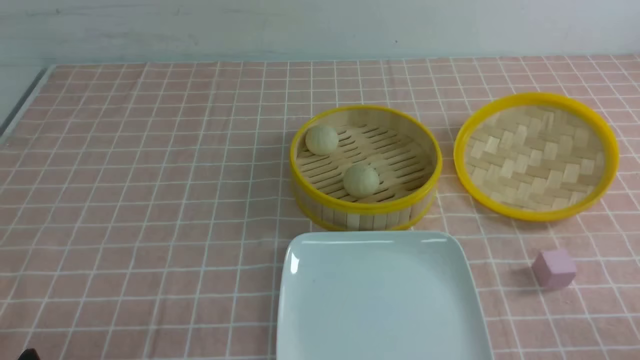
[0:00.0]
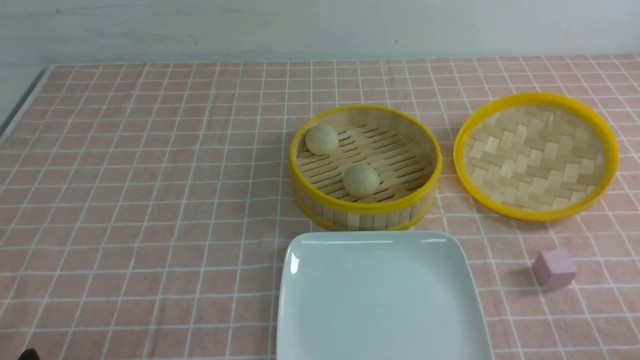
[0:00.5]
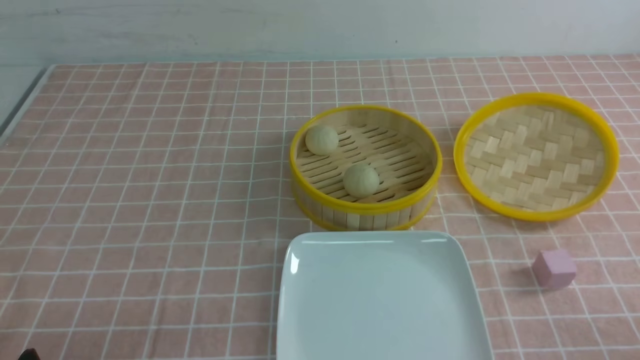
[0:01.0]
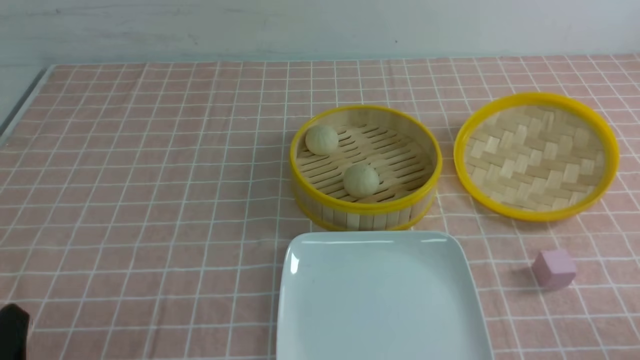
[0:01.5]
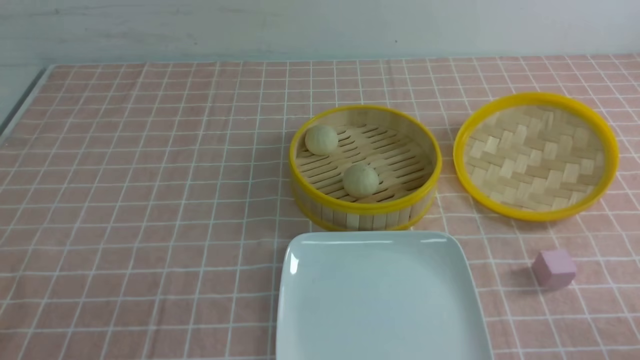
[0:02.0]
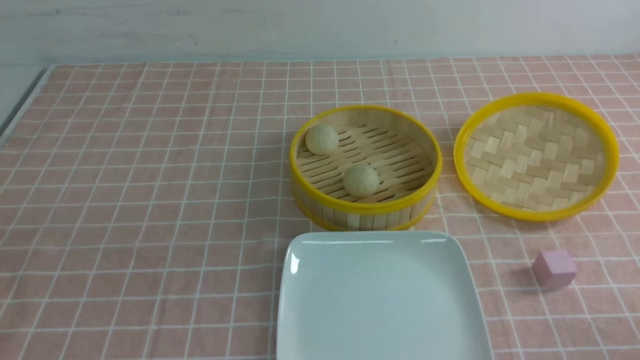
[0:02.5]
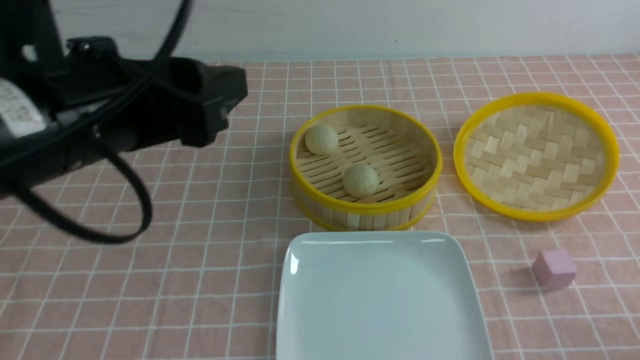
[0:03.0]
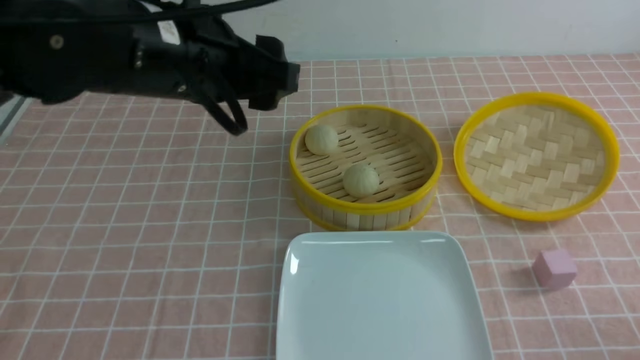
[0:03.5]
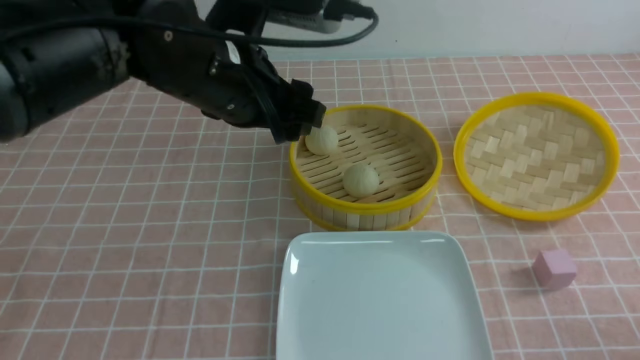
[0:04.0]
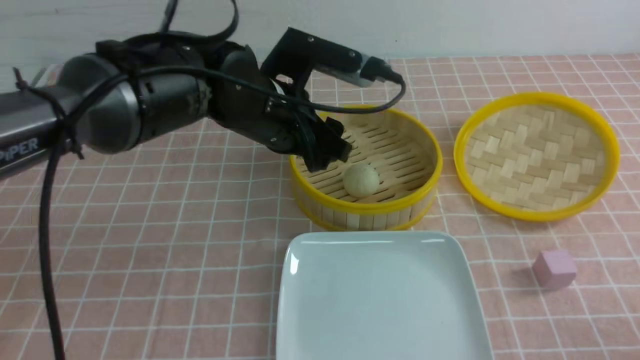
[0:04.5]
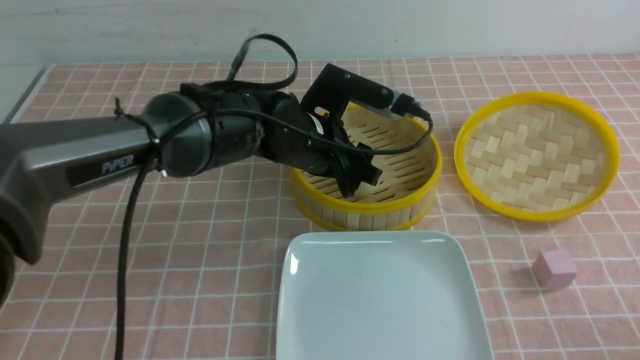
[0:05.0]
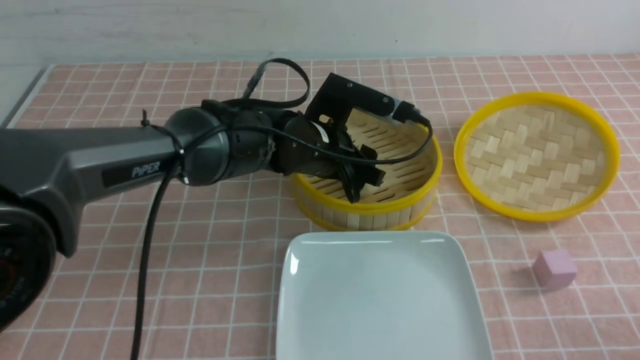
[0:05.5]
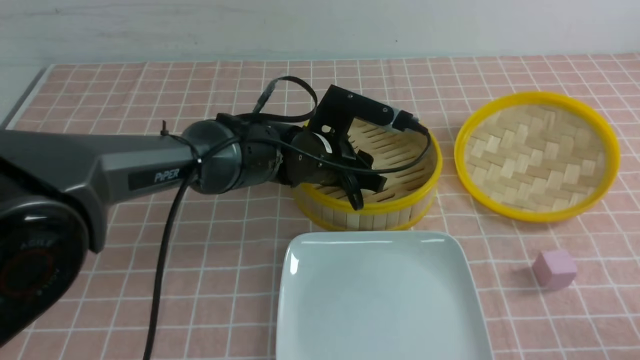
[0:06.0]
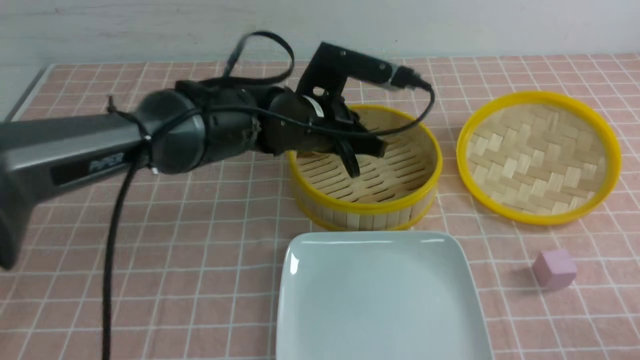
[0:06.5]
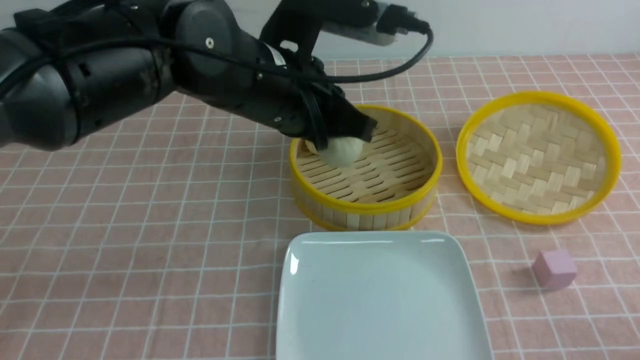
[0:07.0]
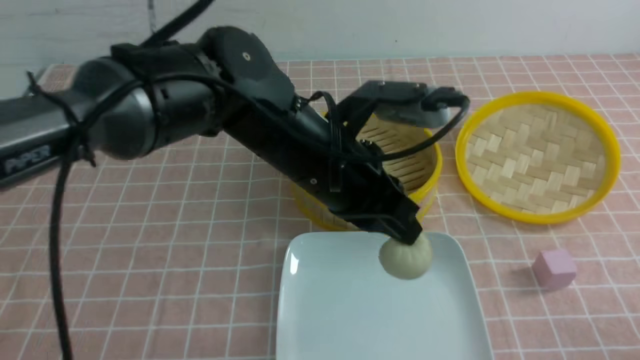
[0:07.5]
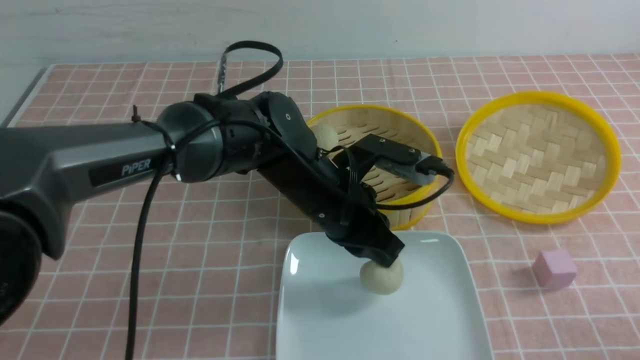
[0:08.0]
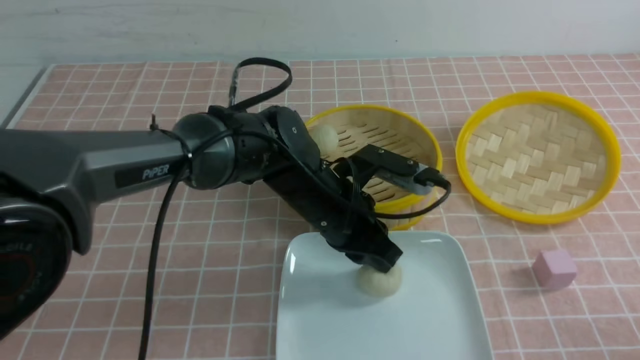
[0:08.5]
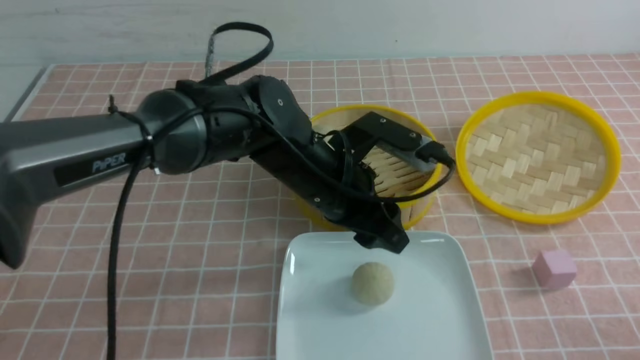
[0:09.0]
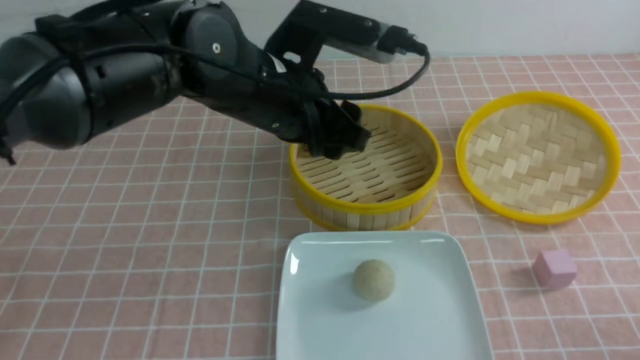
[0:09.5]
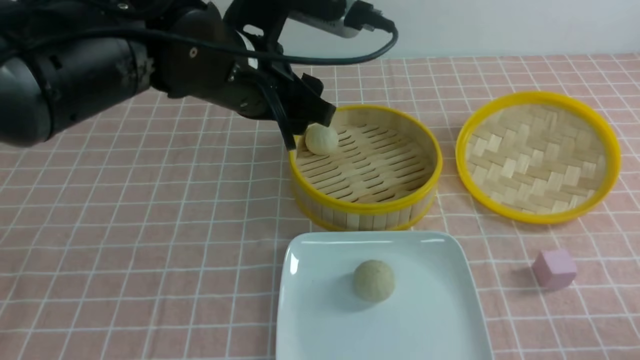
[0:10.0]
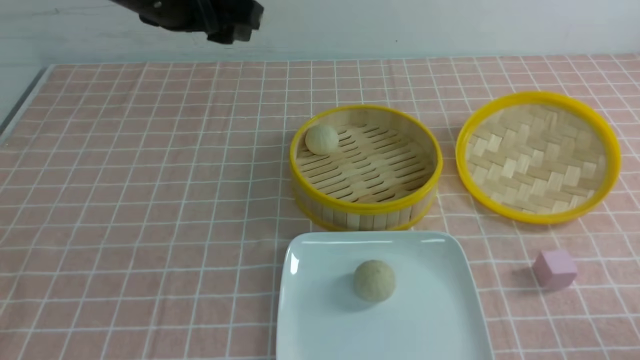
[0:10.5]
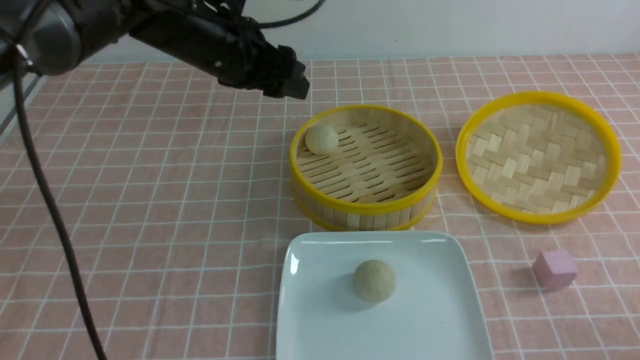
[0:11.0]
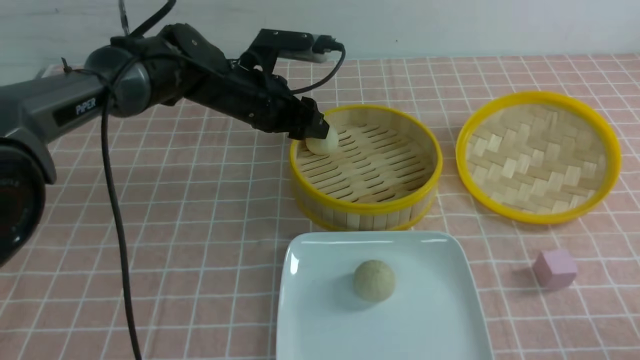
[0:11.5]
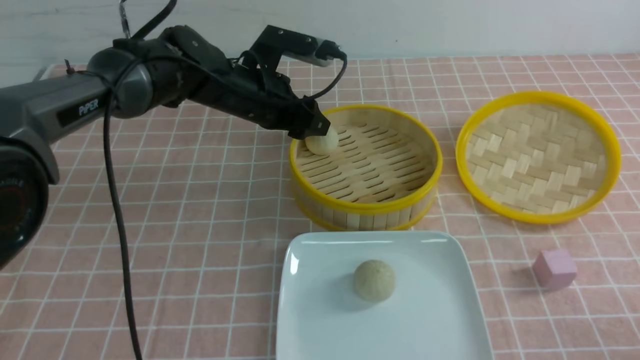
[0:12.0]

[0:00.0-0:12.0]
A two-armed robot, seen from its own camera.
Step, 0:00.0 to 0:06.0: use the left arm to grab the steamed stuffed bun that is closest to it.
Step, 0:06.5 to 0:08.5: use the left arm to put the steamed stuffed bun into the plate.
0:02.0 to 0:04.0: The left gripper is displaced forward, to the right and upward by about 35 cm.
0:04.0 to 0:06.0: The left gripper heads downward, to the right and forward, covering roughly 20 cm, and closes.
0:06.0 to 0:08.0: The left gripper is displaced backward by approximately 5 cm, moves some 15 cm upward and comes back, and closes its fingers.
0:08.0 to 0:10.0: The left gripper goes about 15 cm upward and to the left, and opens its fingers.
0:10.0 to 0:12.0: The left gripper heads forward and downward, covering some 20 cm.

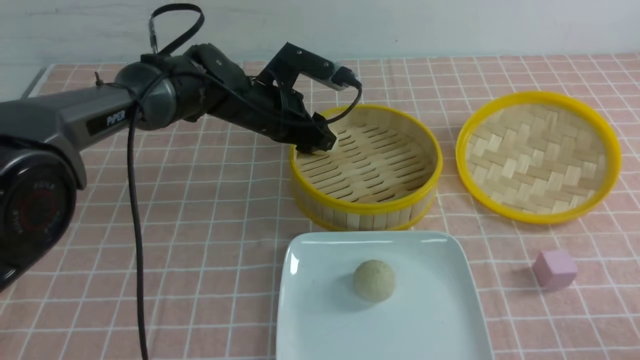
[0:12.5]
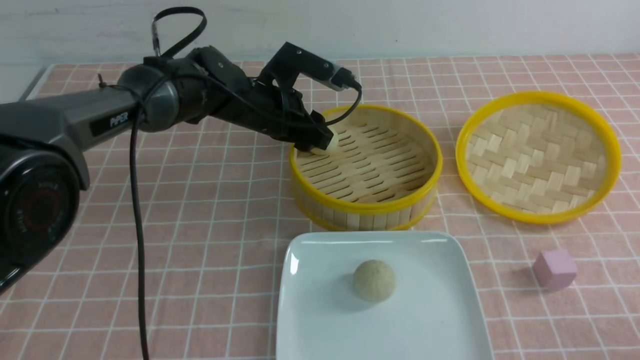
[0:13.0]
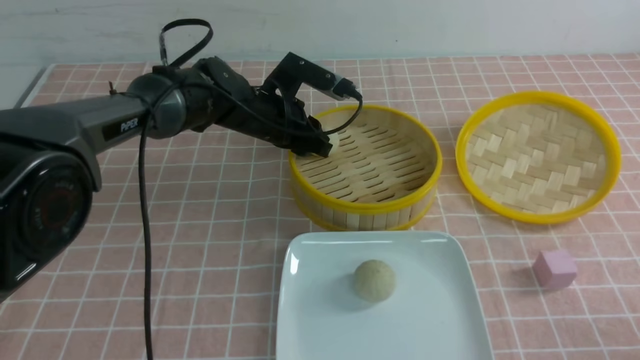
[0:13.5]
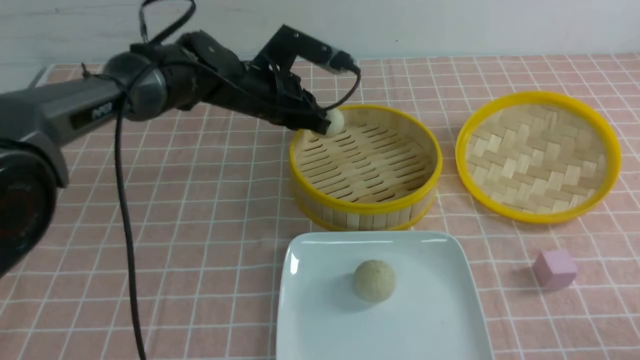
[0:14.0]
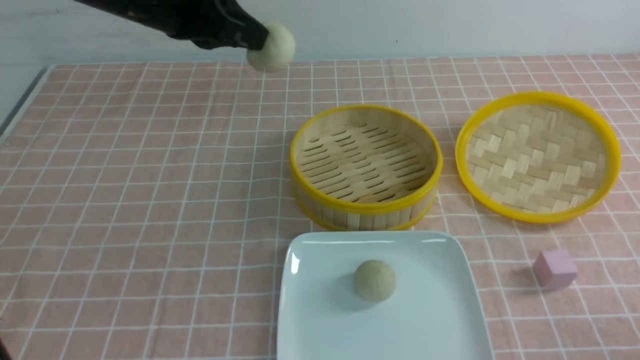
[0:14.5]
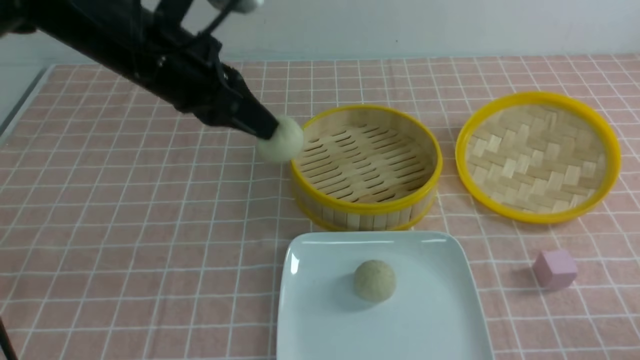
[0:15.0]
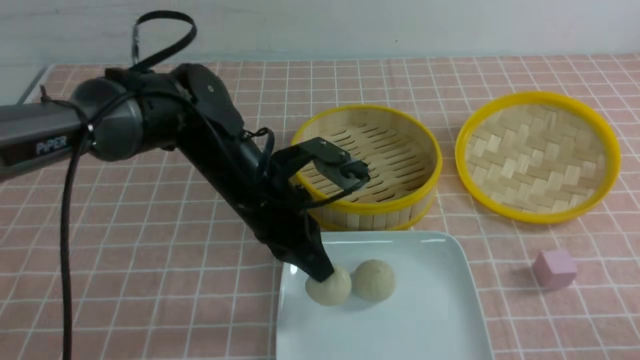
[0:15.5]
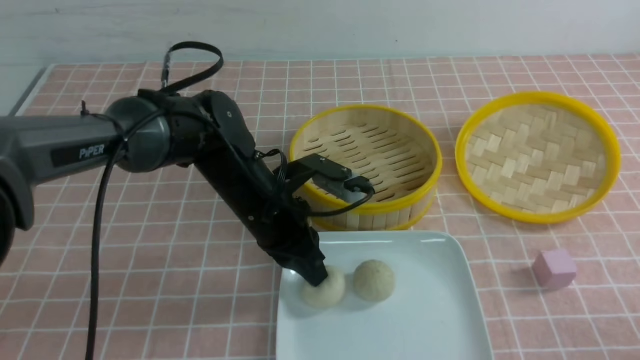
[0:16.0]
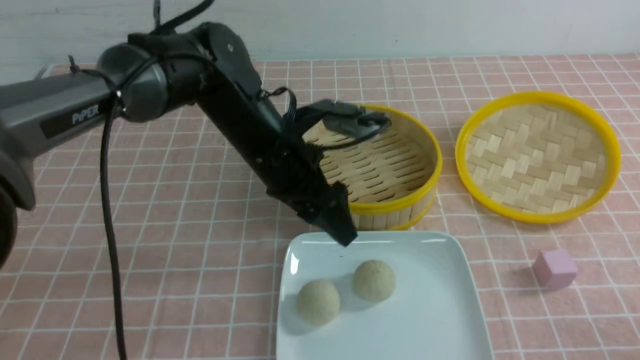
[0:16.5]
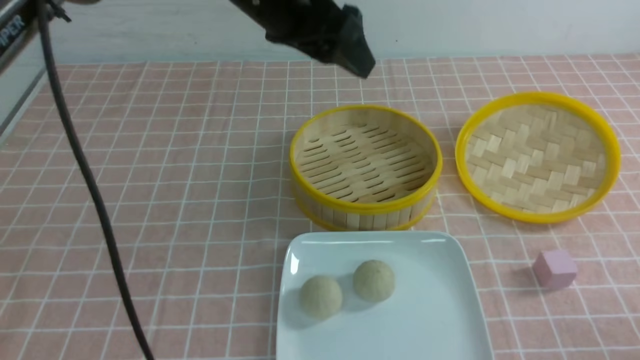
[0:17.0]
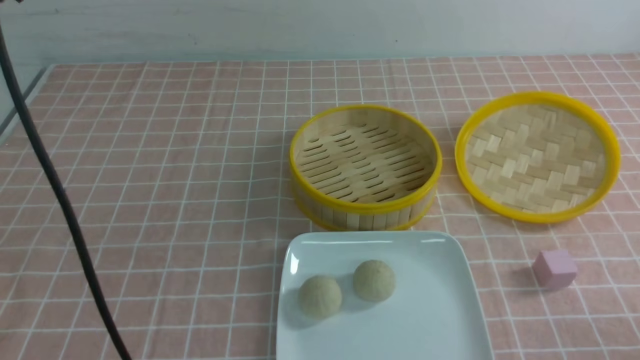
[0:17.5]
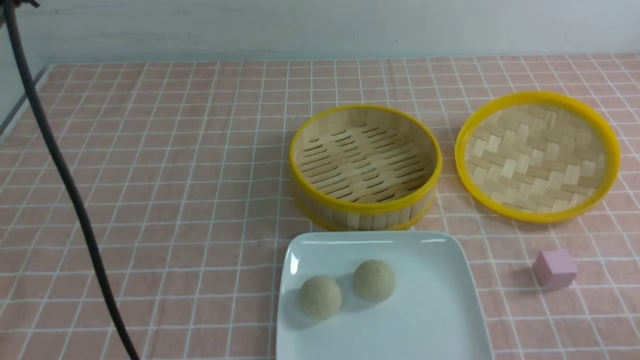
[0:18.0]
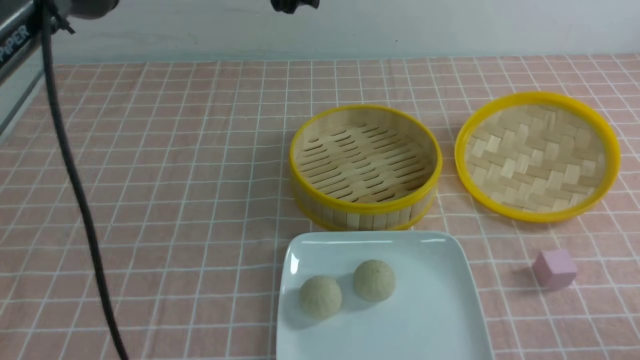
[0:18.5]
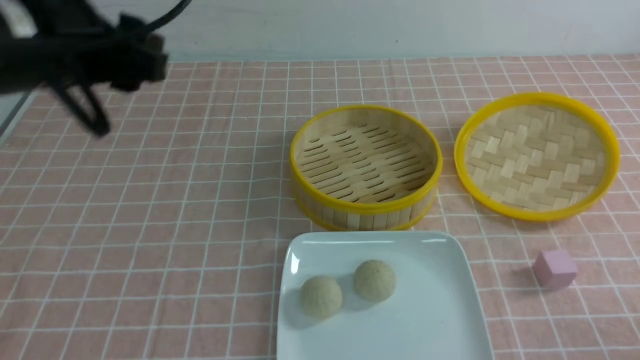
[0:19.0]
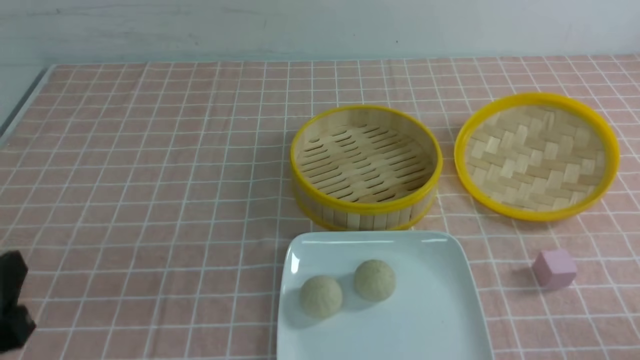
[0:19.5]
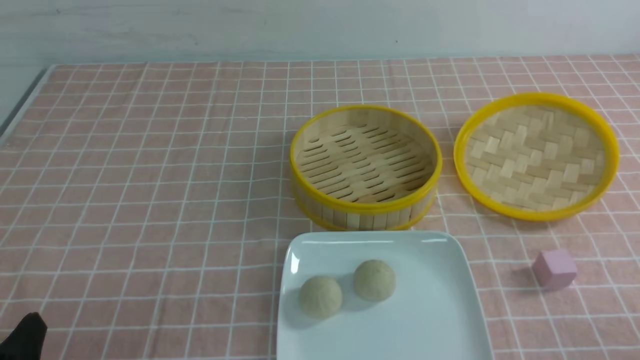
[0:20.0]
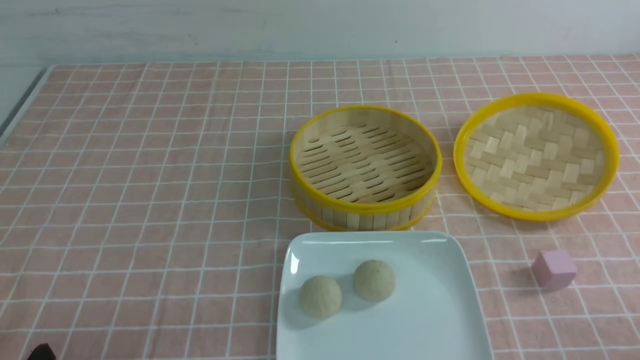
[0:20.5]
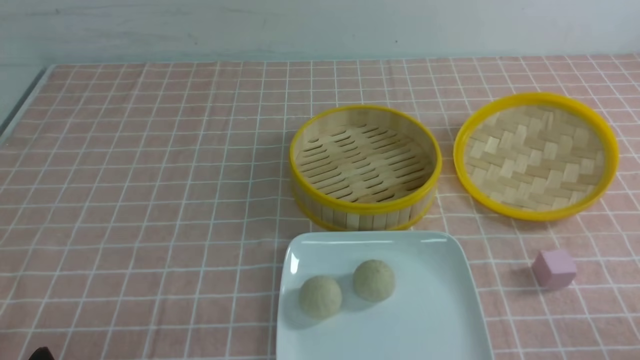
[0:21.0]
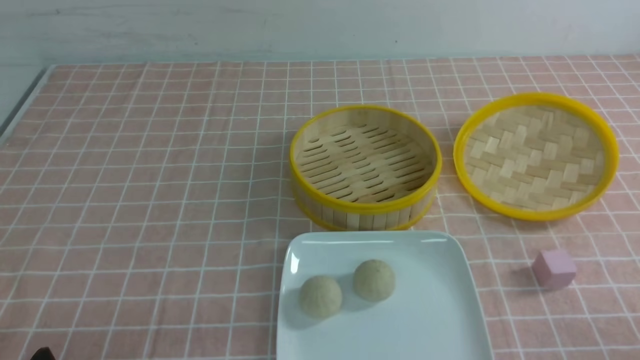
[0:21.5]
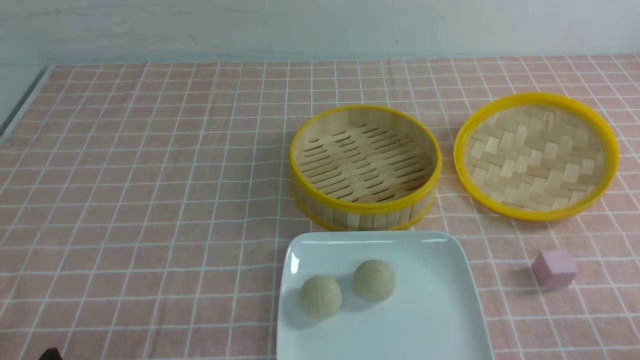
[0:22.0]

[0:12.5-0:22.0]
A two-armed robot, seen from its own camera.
Step, 0:14.0 to 0:16.0: use the left arm to put the steamed stuffed bun into the plate.
0:12.5 to 0:14.5: The left gripper is displaced upward, backward and to the left by about 20 cm, and closes.
0:14.5 to 0:16.5: The left gripper shifts some 15 cm downward and to the right, and opens.
0:16.5 to 0:18.0: The left gripper heads upward, covering about 20 cm.
0:18.0 to 0:20.0: The left gripper travels backward, downward and to the left by approximately 50 cm.
